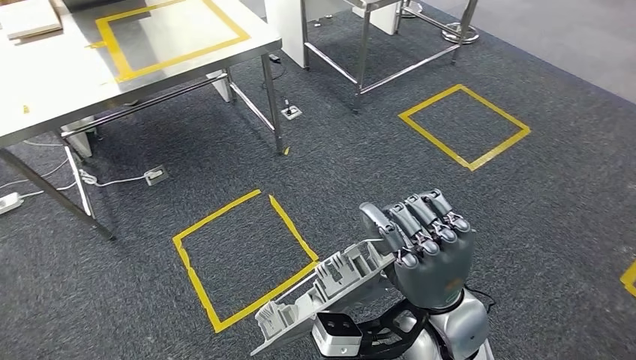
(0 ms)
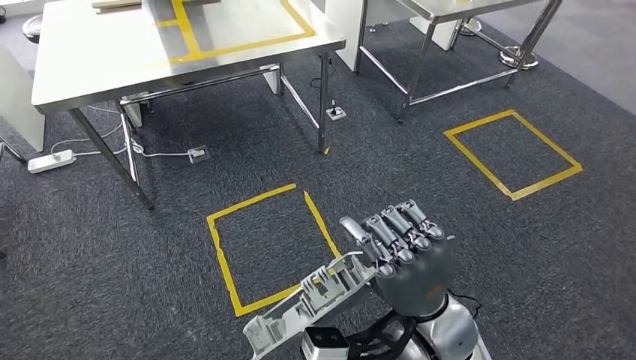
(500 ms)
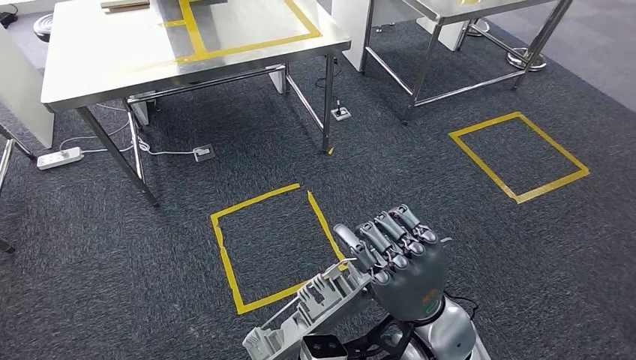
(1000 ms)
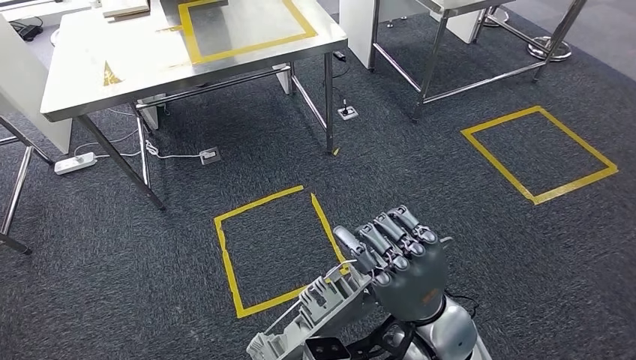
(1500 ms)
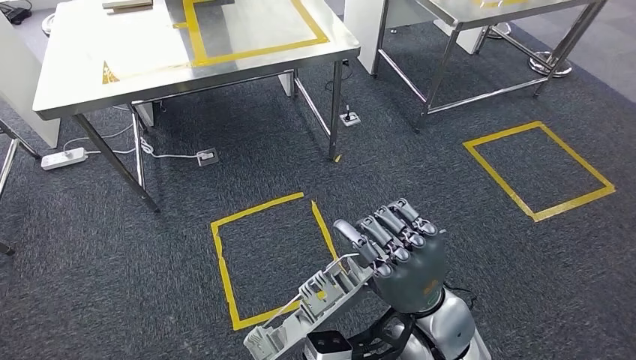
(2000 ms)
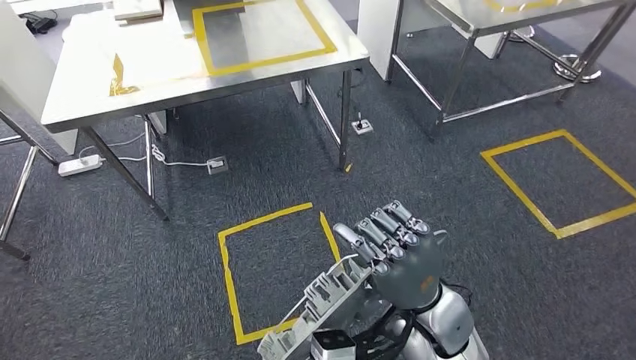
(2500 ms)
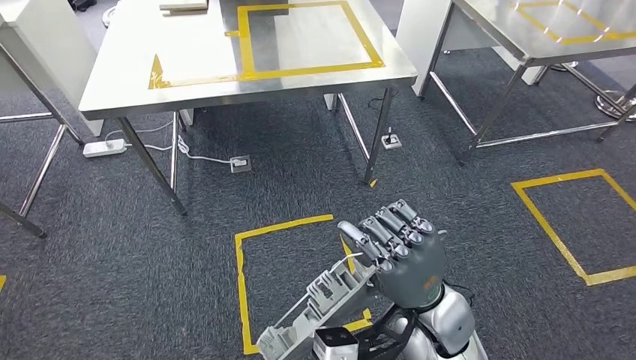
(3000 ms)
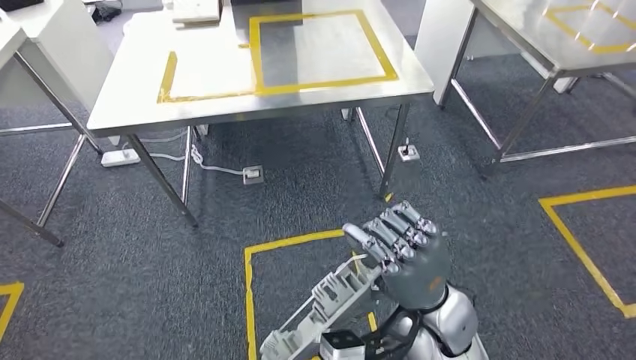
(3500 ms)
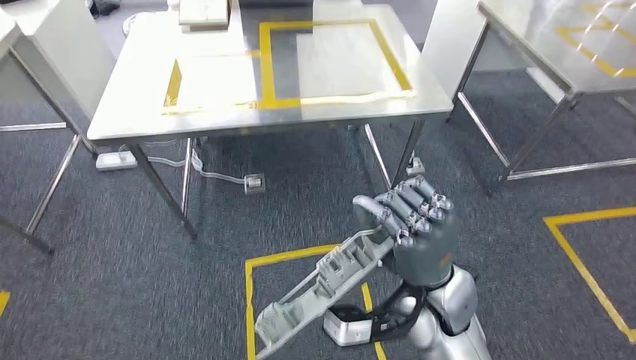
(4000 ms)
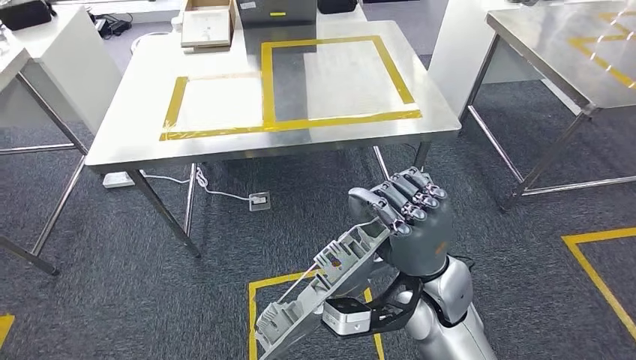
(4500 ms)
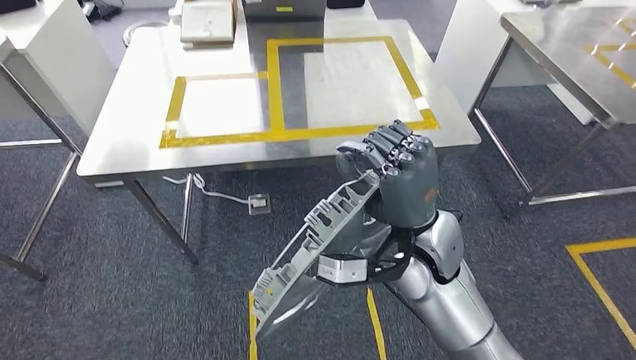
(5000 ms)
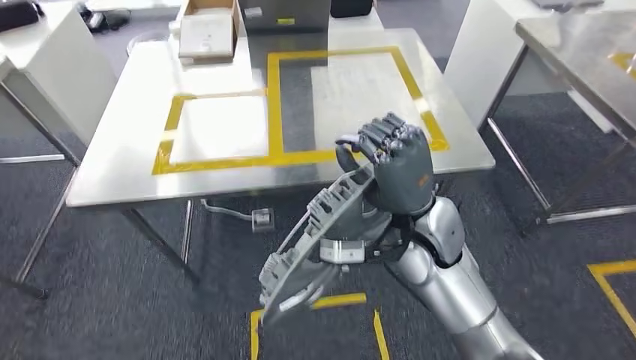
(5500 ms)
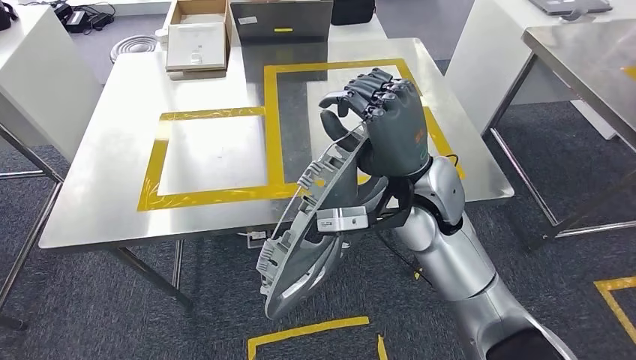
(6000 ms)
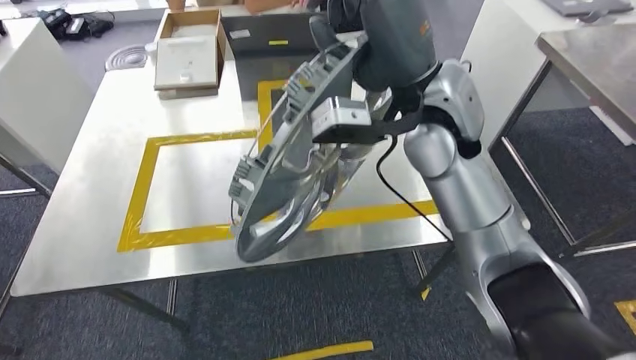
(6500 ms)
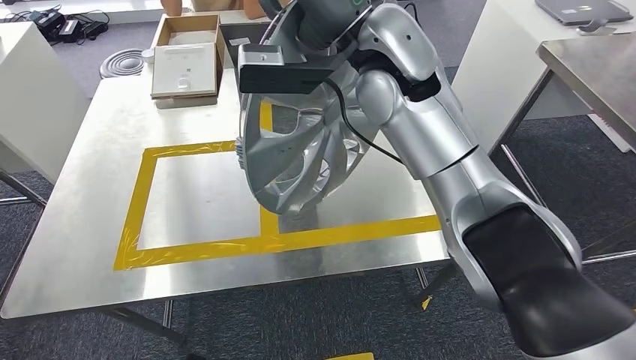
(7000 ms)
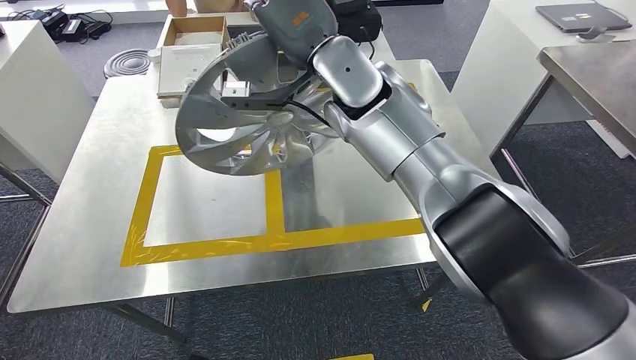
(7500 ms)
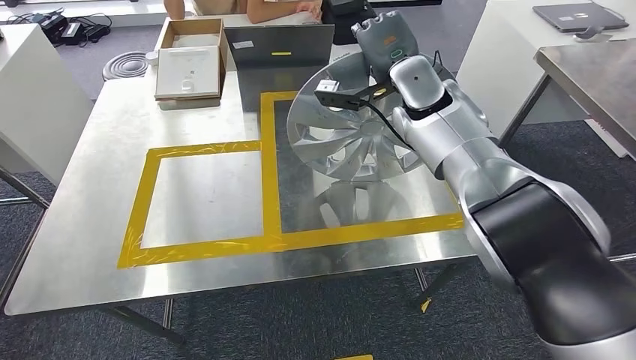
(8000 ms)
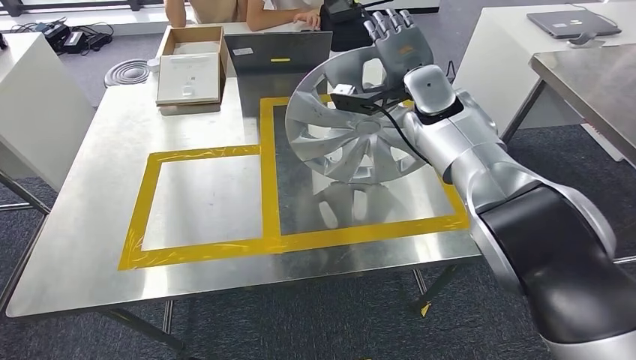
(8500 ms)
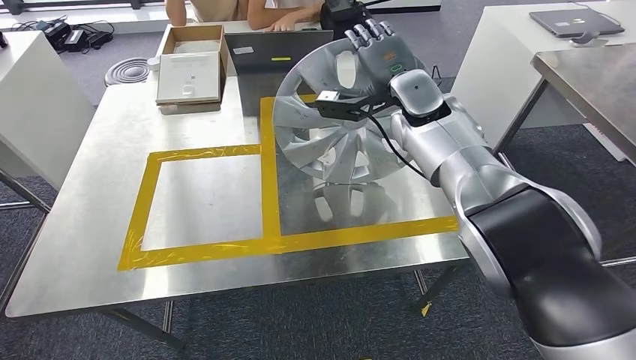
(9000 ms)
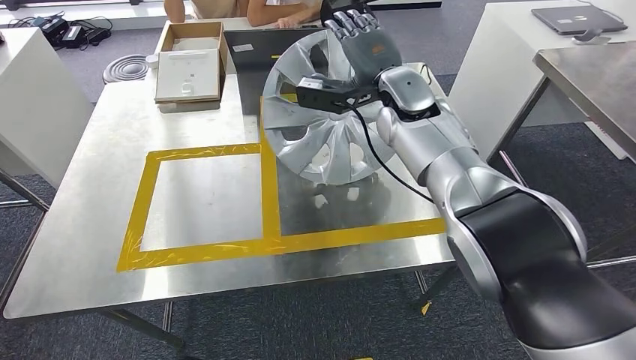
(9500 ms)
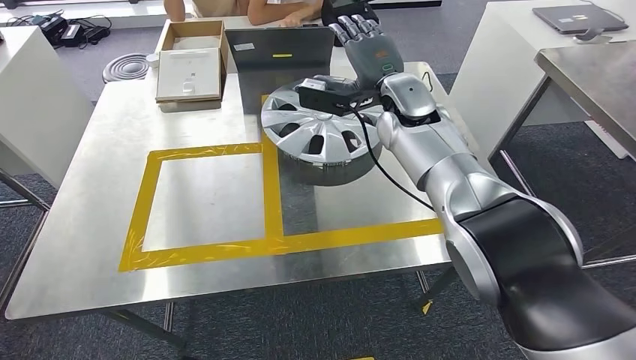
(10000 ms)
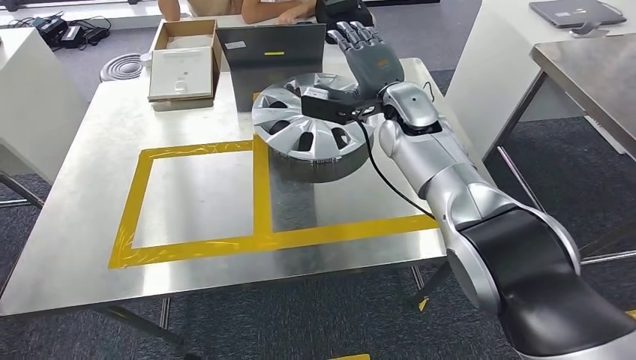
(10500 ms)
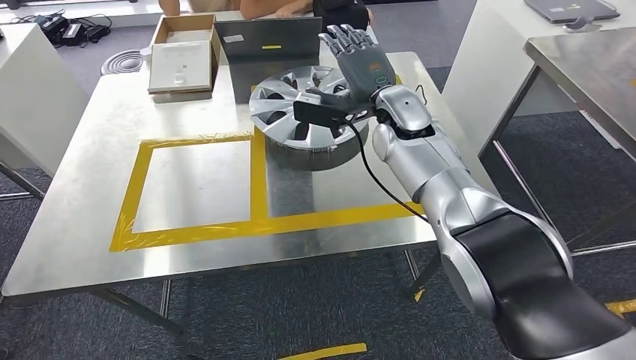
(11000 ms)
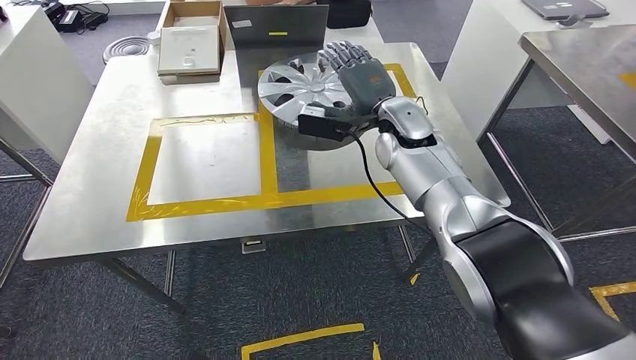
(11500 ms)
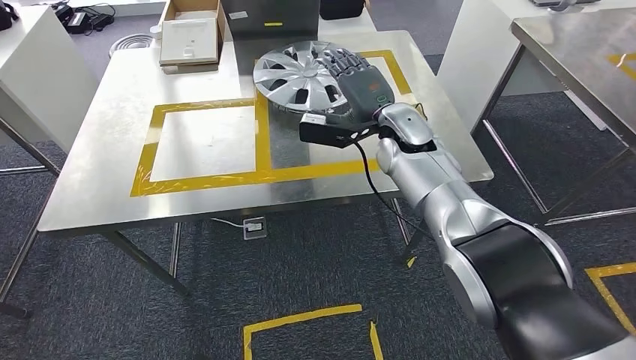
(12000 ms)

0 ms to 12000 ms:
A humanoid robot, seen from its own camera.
Step, 0 ms to 7000 ms: Move the small component to the workbench.
Step, 7500 ms to 11500 ms: Insert the small component into the corresponding slot on the workbench.

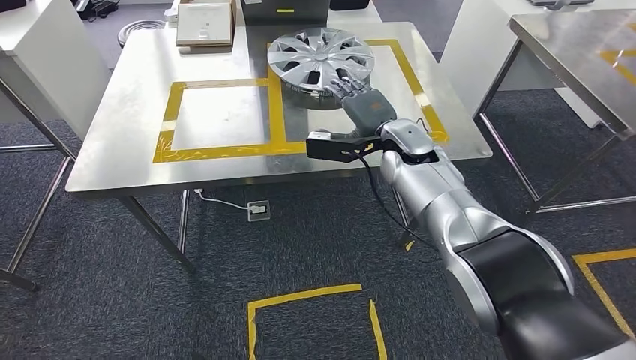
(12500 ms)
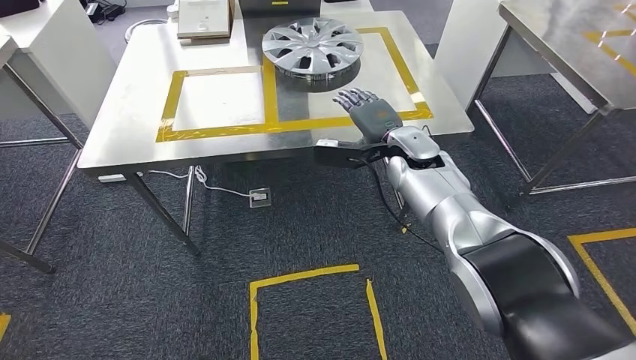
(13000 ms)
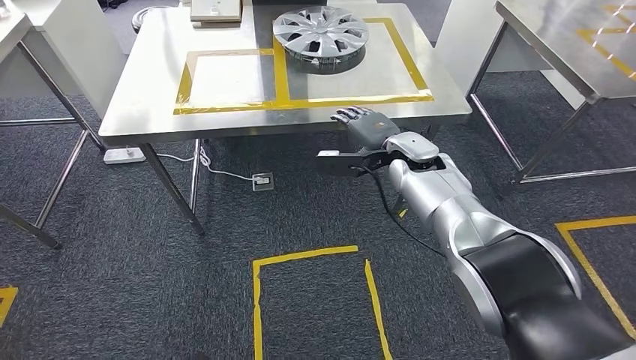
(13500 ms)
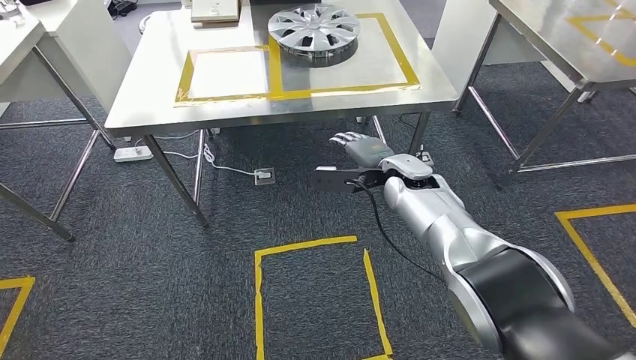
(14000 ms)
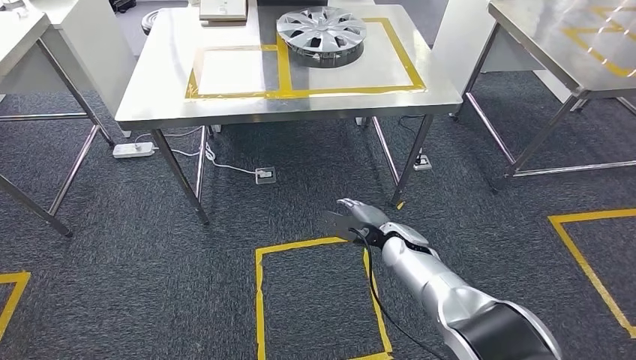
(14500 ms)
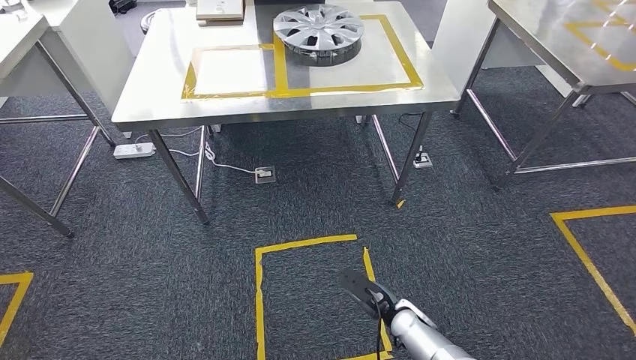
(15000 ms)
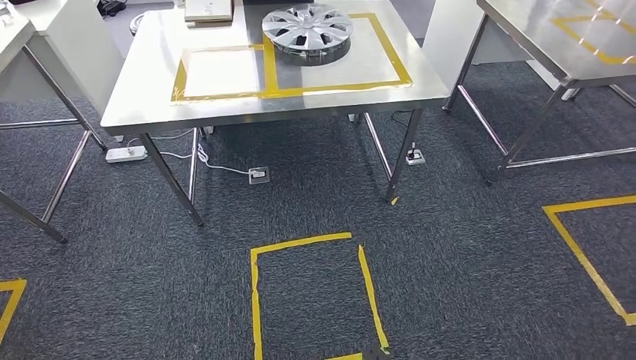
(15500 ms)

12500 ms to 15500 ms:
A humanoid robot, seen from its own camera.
Step, 12500 ms to 15500 ms: Return to the initial position at the workbench.

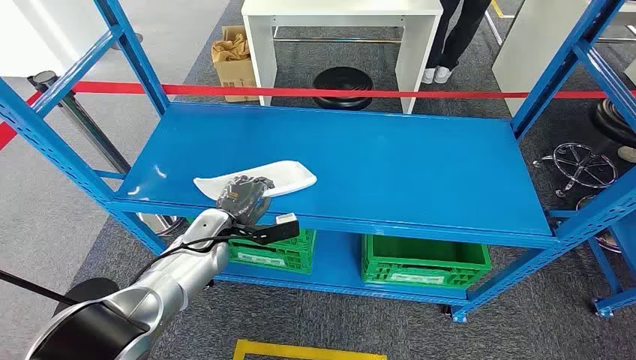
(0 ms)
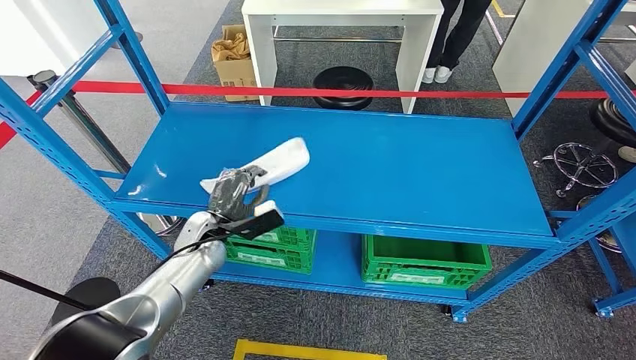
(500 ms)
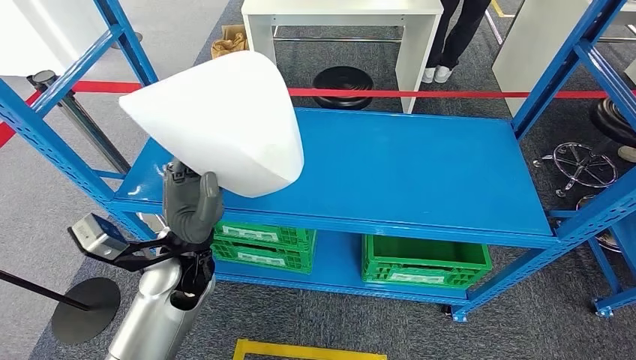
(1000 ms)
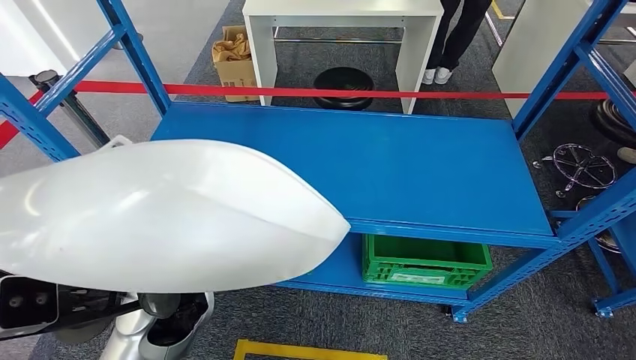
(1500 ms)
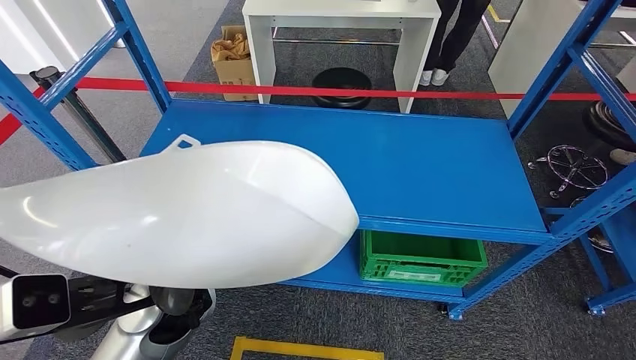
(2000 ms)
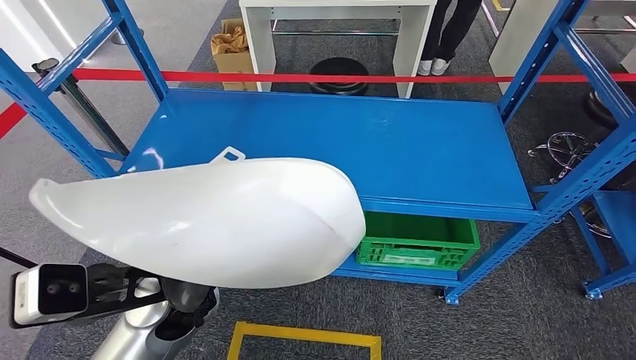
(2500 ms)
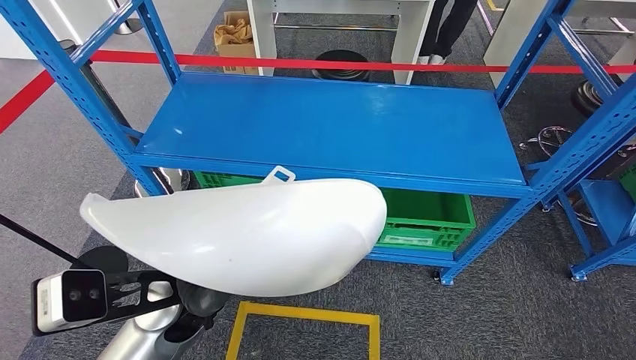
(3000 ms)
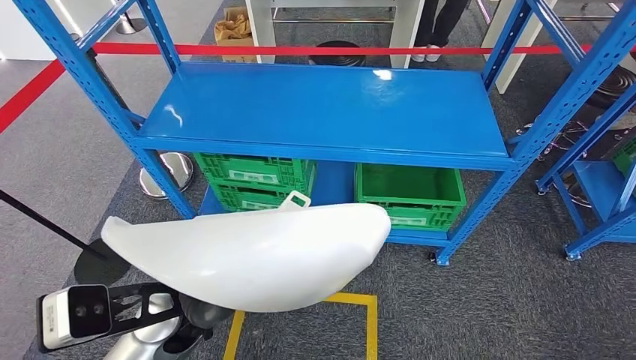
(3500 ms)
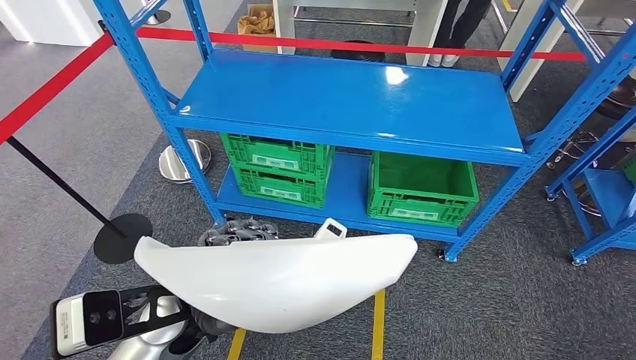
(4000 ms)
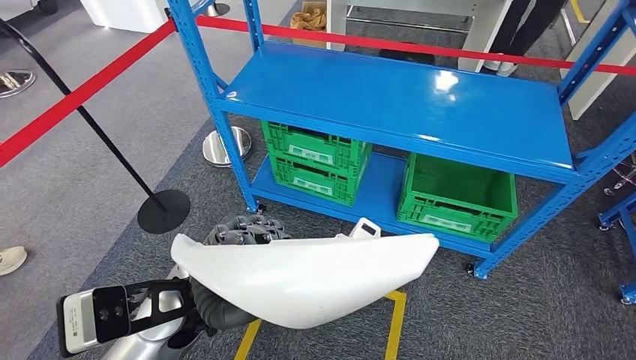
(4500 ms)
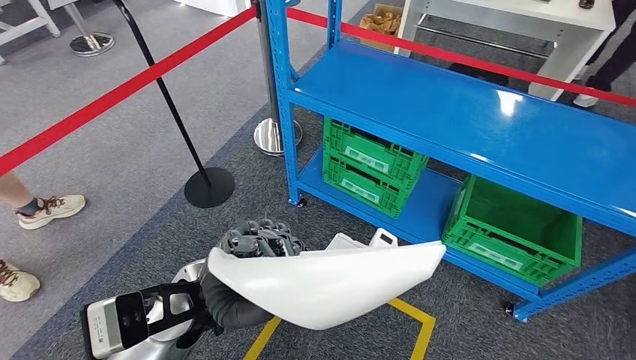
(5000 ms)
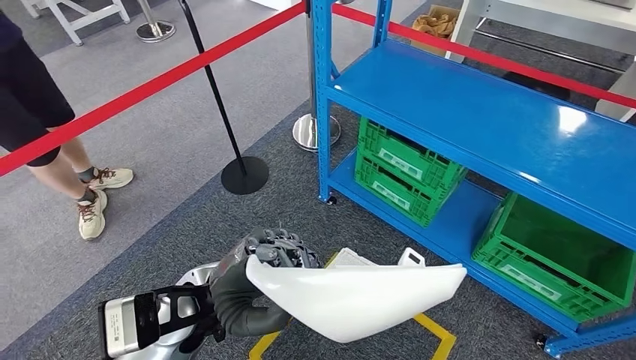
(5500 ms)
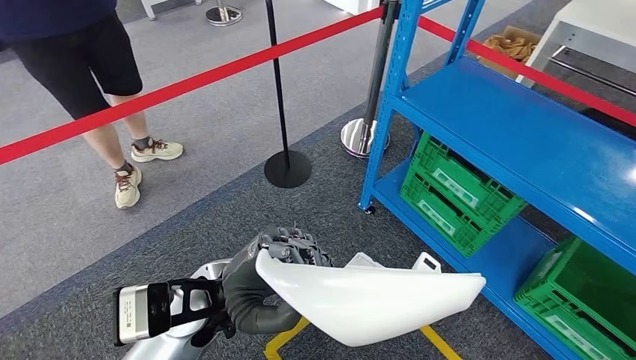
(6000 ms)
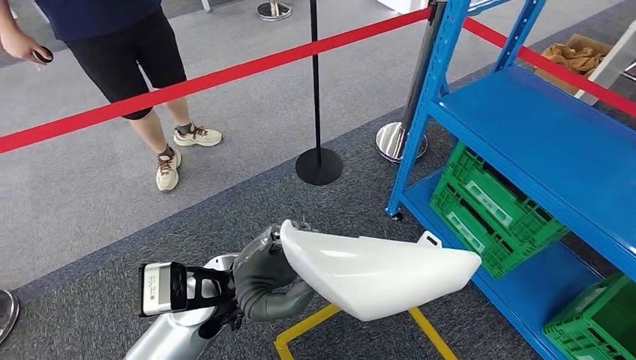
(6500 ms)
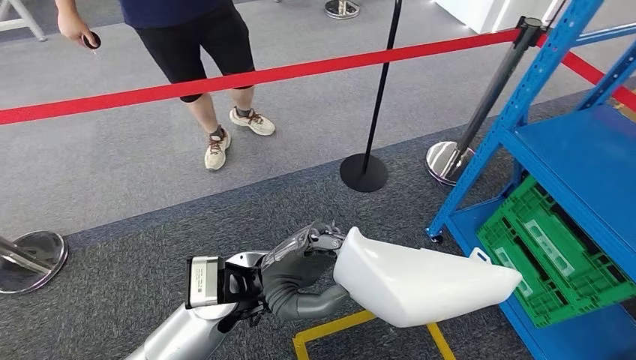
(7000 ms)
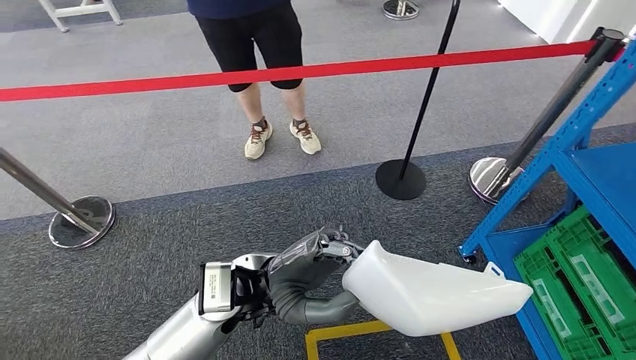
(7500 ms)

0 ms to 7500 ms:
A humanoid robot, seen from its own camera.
Step, 0 ms to 1500 ms: Pick up the small component from the shelf.
